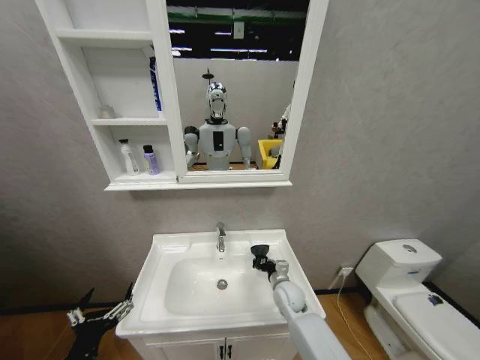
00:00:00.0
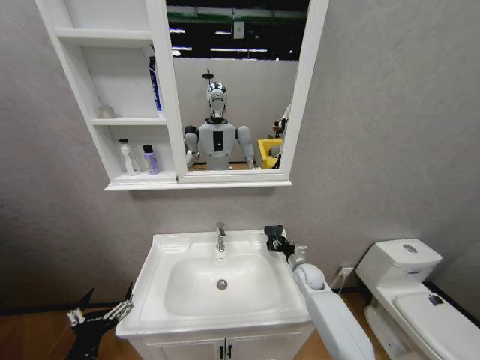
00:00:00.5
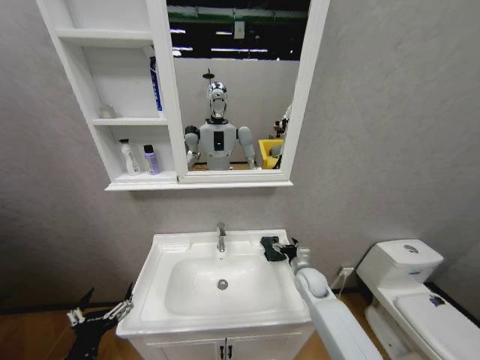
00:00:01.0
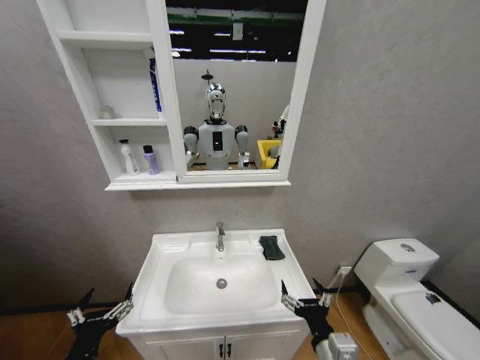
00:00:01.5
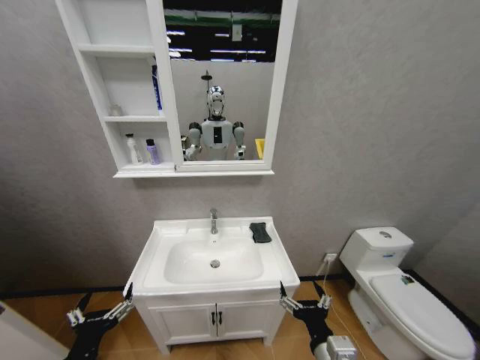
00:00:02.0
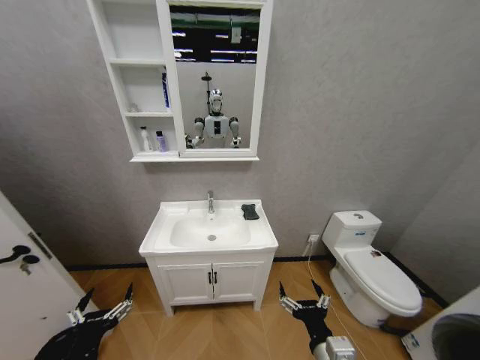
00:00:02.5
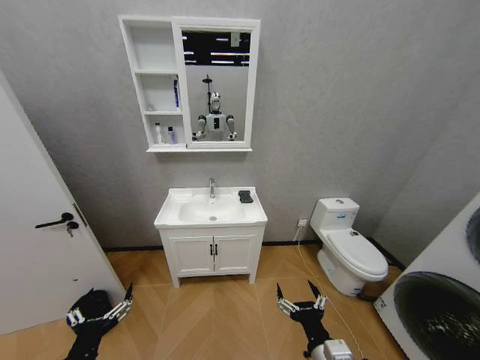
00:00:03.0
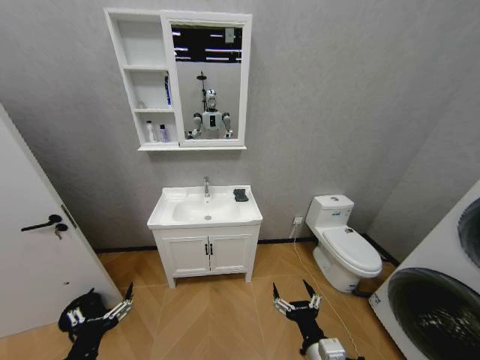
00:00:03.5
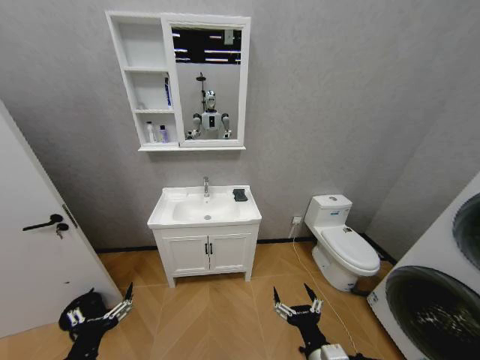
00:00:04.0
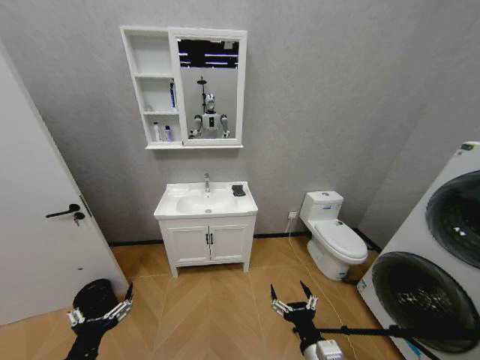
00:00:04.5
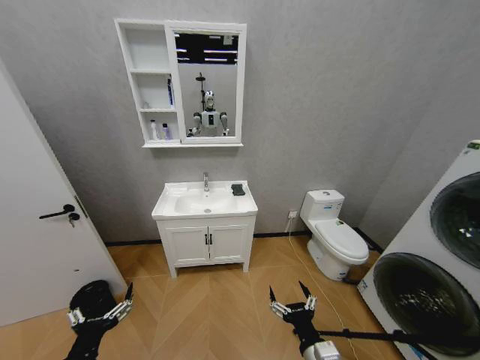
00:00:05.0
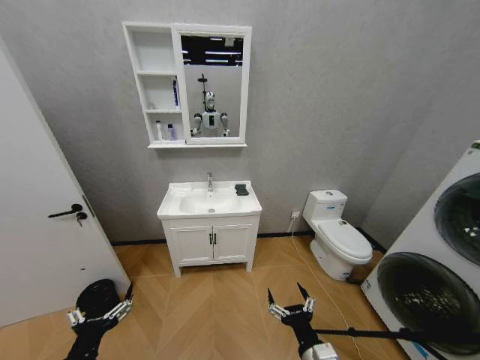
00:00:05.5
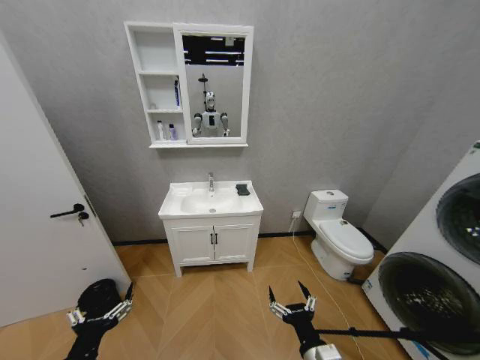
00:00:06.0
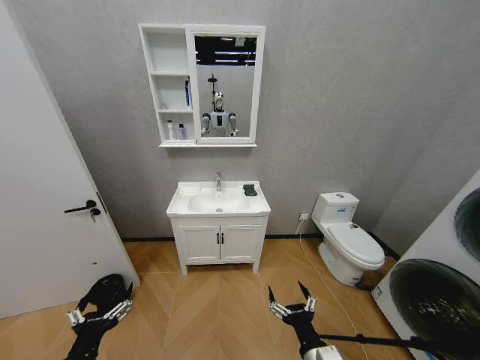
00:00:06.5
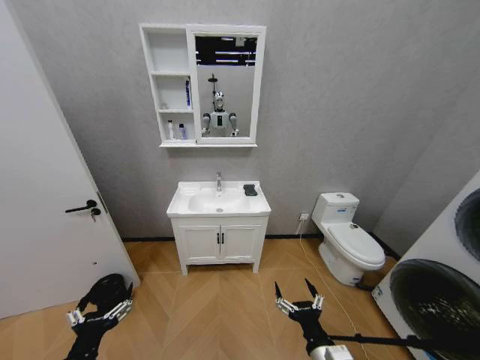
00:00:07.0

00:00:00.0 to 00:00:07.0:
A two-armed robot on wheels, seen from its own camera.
Task of the whole recording: Move facial cleanser and shampoo from washbasin to cabinet, then wipe washbasin with towel.
00:00:00.0 to 00:00:02.0: The right gripper goes about 25 cm backward, and opens up.
00:00:03.5 to 00:00:05.0: Both grippers stay about where they are.

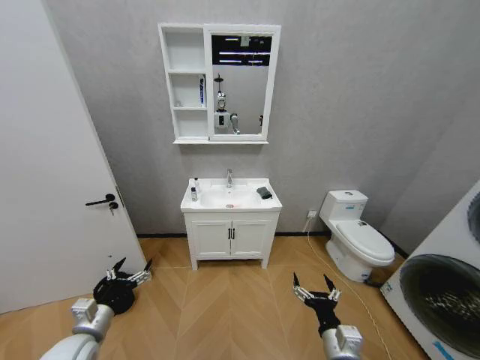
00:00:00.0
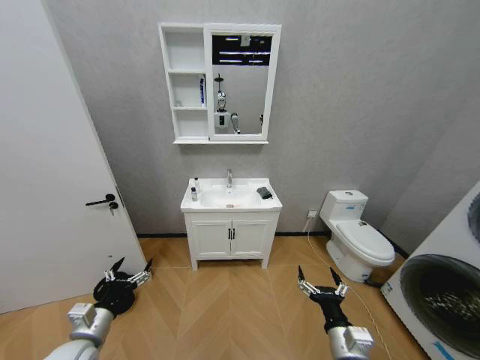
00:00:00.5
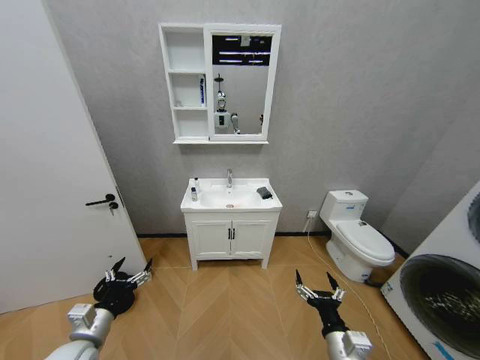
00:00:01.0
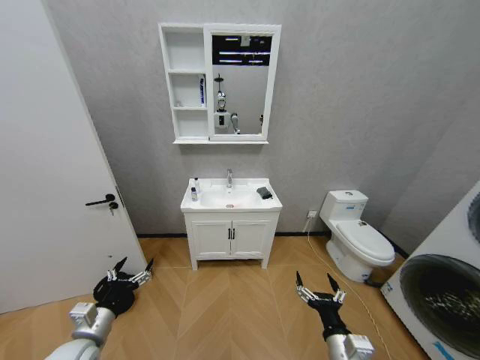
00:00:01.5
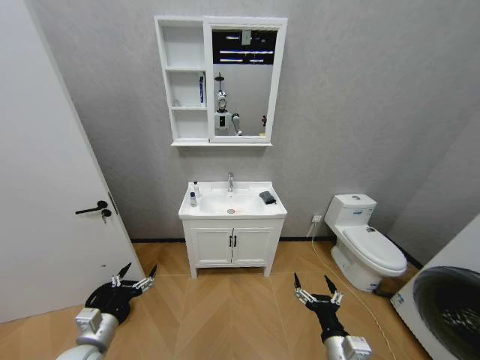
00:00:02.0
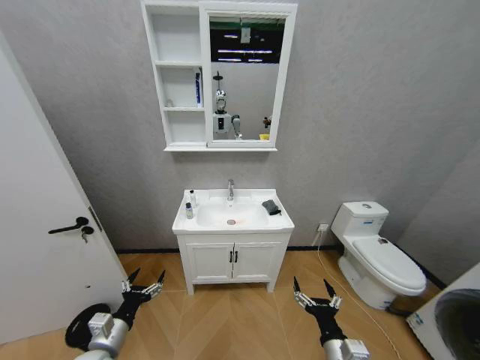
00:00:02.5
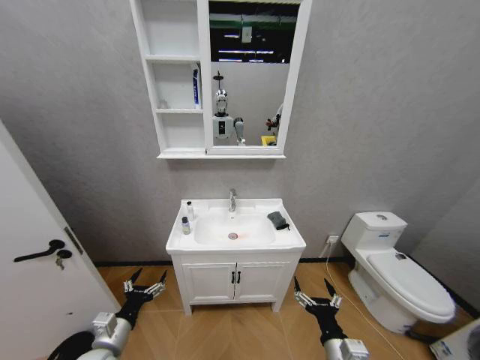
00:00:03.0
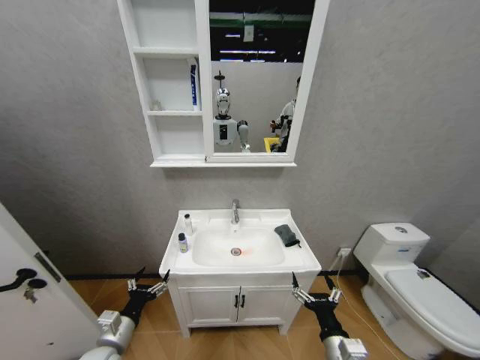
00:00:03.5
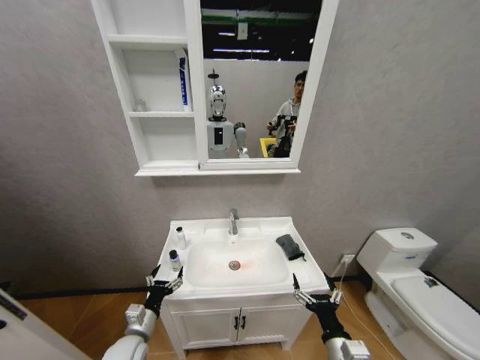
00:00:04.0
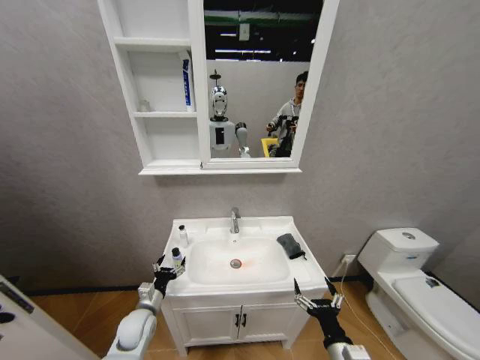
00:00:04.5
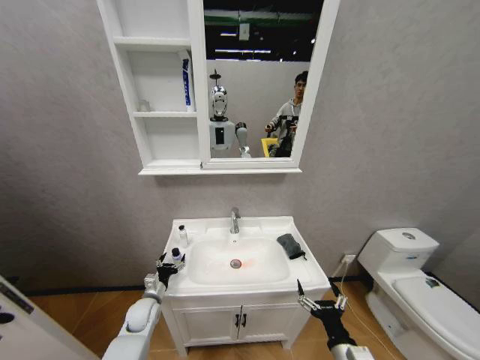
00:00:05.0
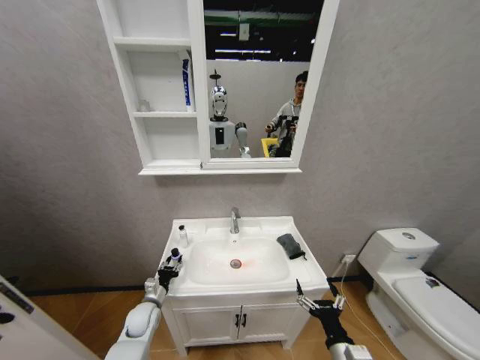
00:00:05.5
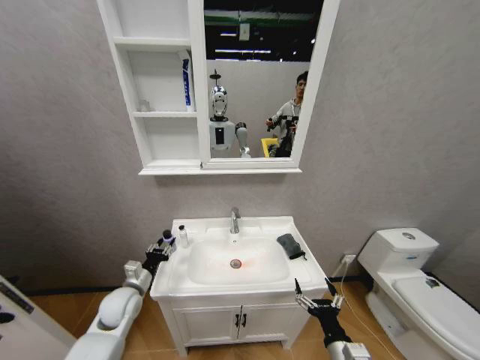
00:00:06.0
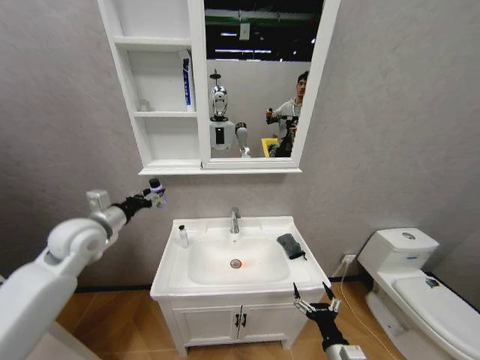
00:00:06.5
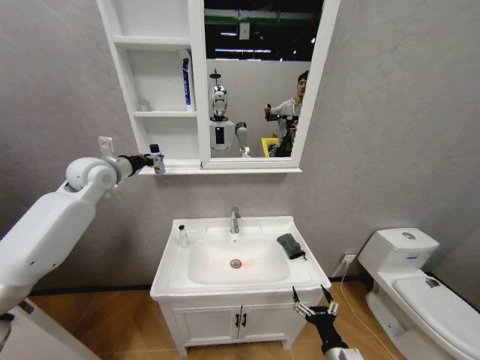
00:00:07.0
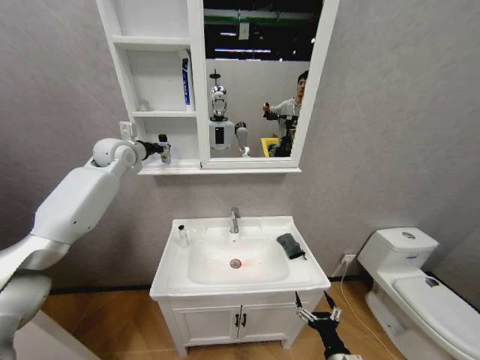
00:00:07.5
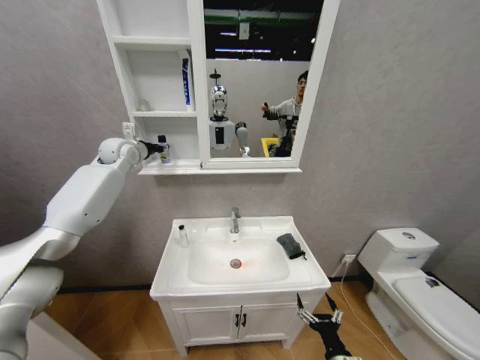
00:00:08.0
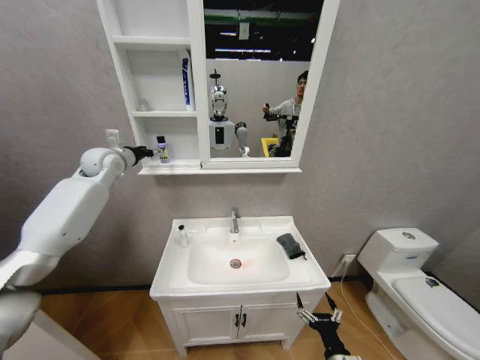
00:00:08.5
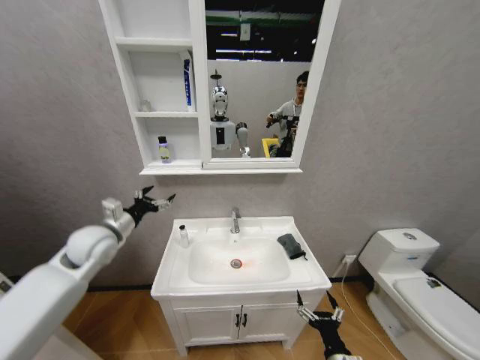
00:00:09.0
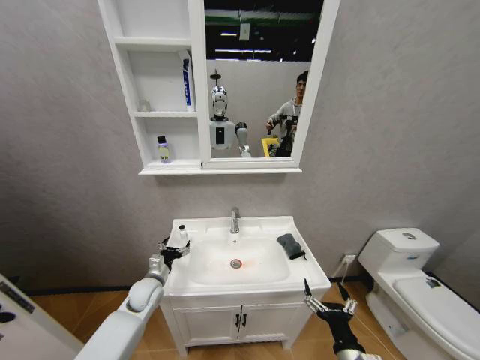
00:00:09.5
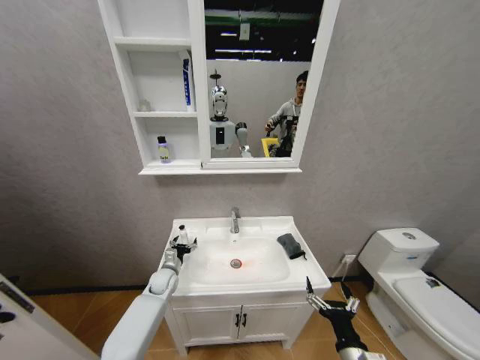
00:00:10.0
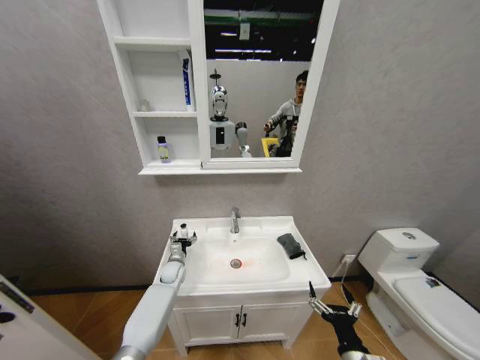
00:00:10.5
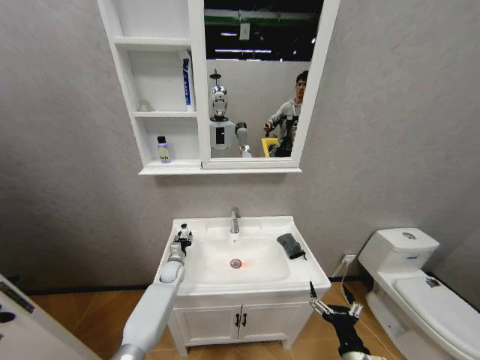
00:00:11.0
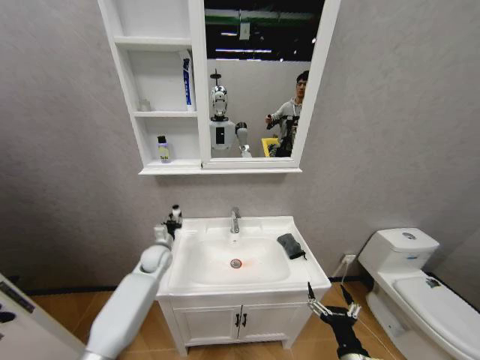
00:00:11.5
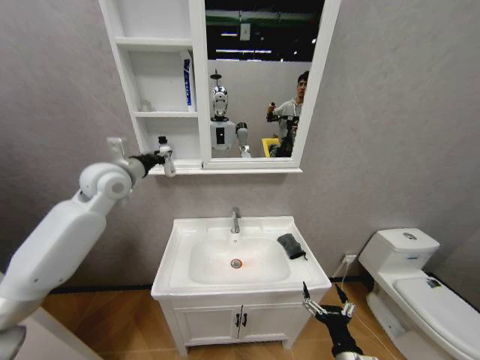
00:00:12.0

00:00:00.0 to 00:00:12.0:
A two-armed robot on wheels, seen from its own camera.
Task of the whole recording: Move facial cleanser and shampoo from washbasin to cabinet, then wipe washbasin with towel.
00:00:02.0 to 00:00:04.0: The left gripper shifts about 10 cm to the right and downward.
00:00:04.0 to 00:00:06.0: The left gripper moves forward and upward, roughly 10 cm, and closes.
00:00:06.0 to 00:00:08.0: The right gripper goes approximately 5 cm downward. The left gripper travels upward and forward by approximately 50 cm.
00:00:08.0 to 00:00:10.0: The right gripper heads upward, covering some 10 cm, while the left gripper travels downward by some 50 cm, and opens its fingers.
00:00:10.0 to 00:00:12.0: The left gripper heads upward, covering about 40 cm, and closes.

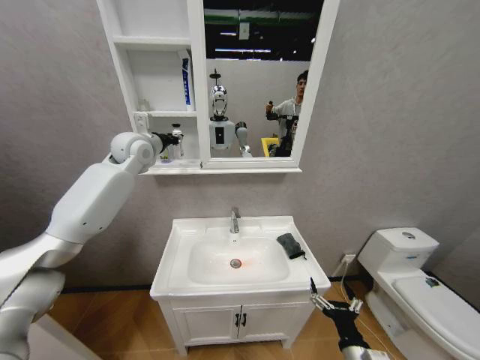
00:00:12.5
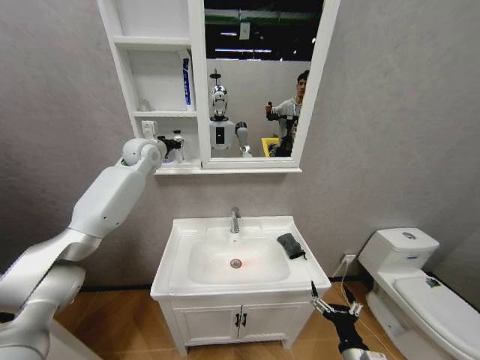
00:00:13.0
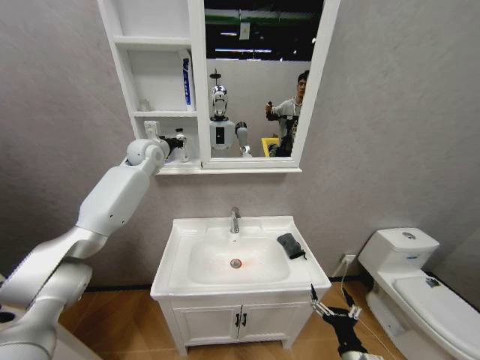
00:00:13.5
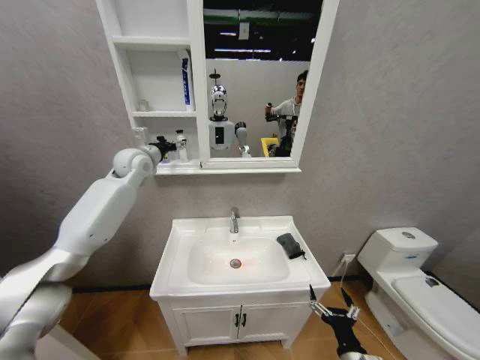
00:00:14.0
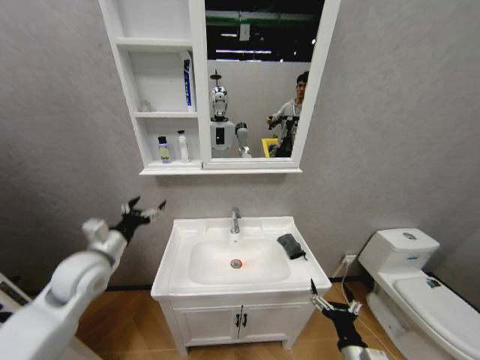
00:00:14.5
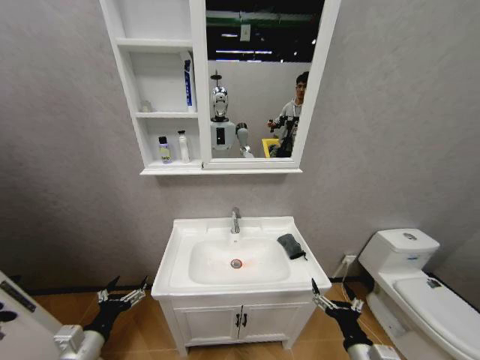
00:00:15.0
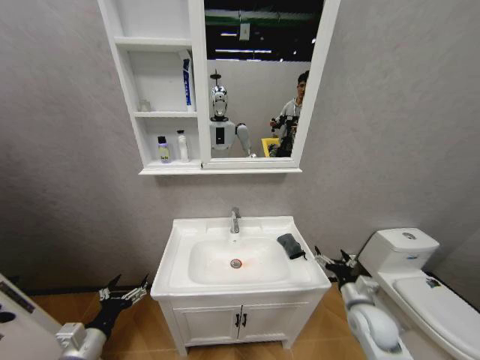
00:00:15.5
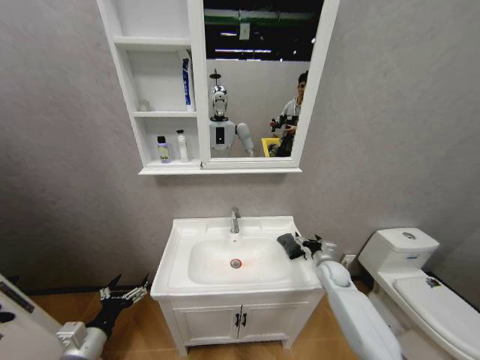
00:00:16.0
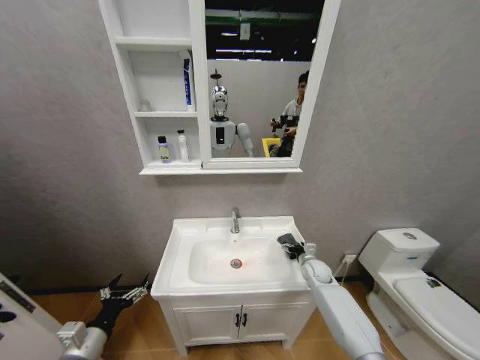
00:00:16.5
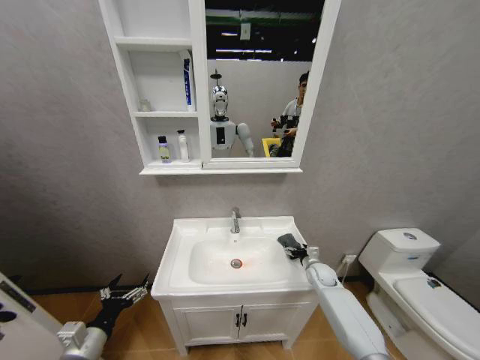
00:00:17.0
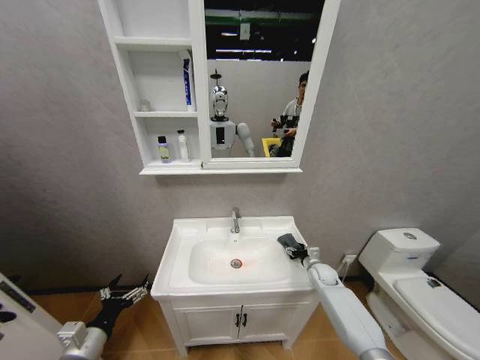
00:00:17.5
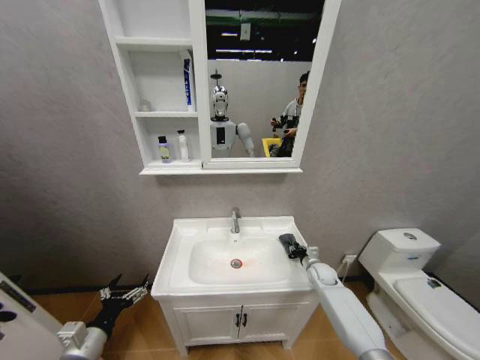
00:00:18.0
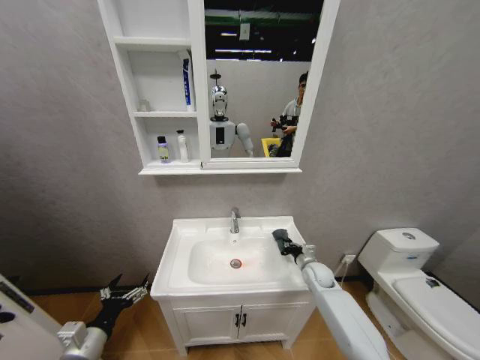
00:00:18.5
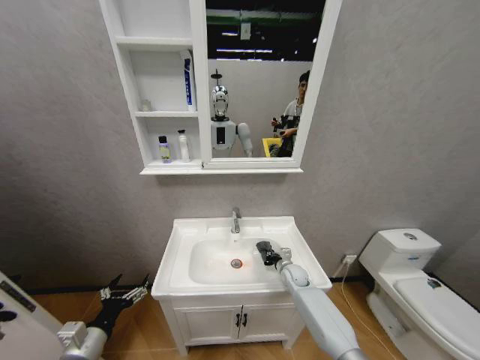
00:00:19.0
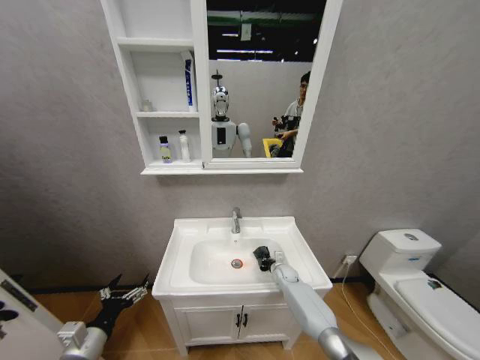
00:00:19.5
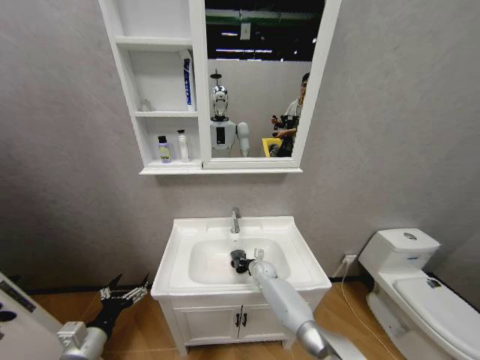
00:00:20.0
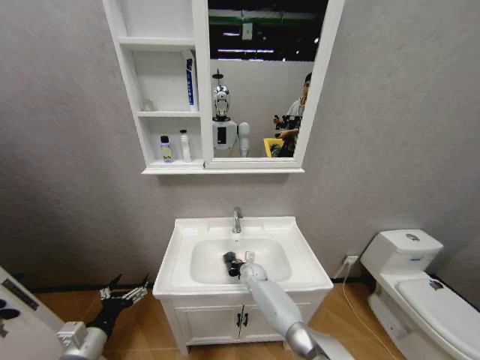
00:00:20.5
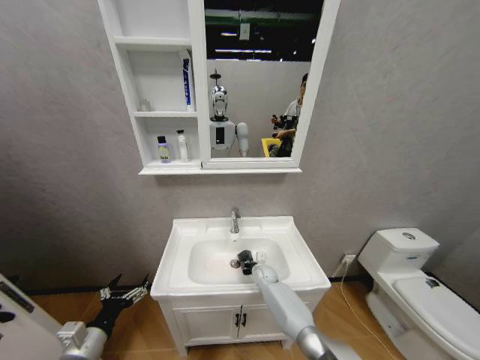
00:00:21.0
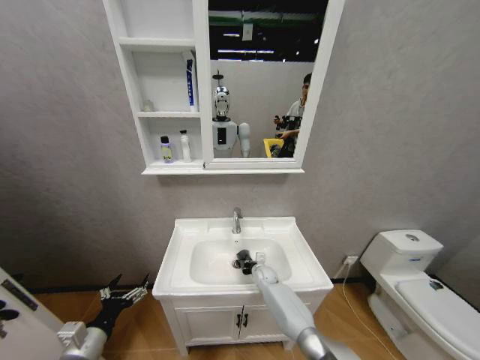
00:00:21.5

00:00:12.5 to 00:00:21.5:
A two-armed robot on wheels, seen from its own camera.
Task of the whole recording: Move facial cleanser and shampoo from washbasin to cabinet, then wipe washbasin with towel.
00:00:12.5 to 00:00:14.5: The left gripper shifts roughly 30 cm downward and backward, and opens up.
00:00:14.5 to 00:00:17.0: The right gripper goes some 35 cm forward. Meanwhile the left gripper travels downward and backward by roughly 25 cm.
00:00:17.0 to 00:00:19.5: The right gripper travels to the left and downward by about 15 cm, and closes.
00:00:19.5 to 00:00:21.5: The right gripper travels to the left by some 10 cm.
